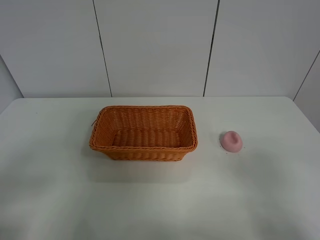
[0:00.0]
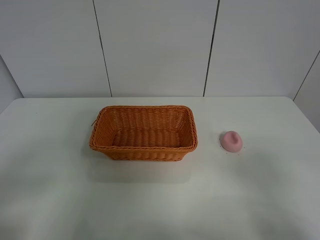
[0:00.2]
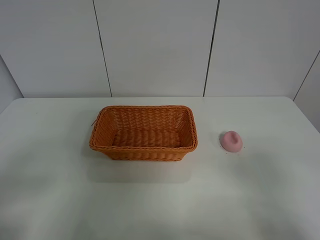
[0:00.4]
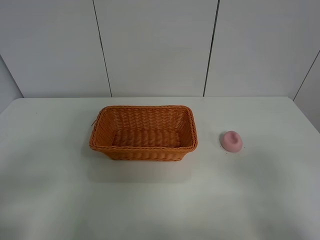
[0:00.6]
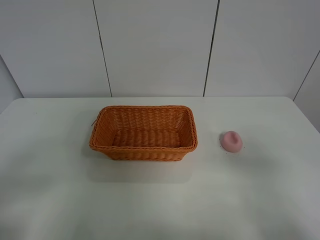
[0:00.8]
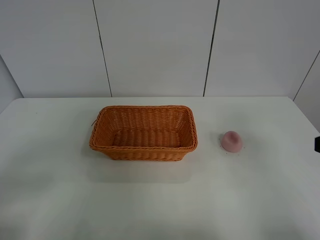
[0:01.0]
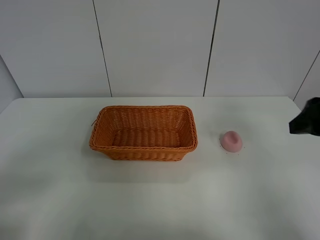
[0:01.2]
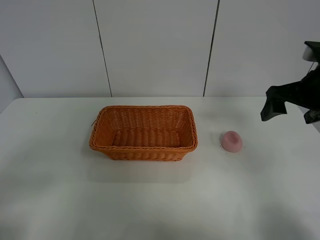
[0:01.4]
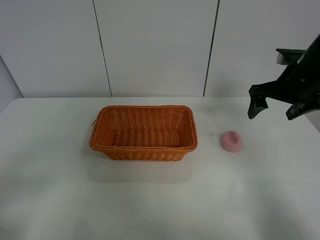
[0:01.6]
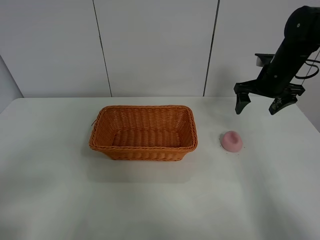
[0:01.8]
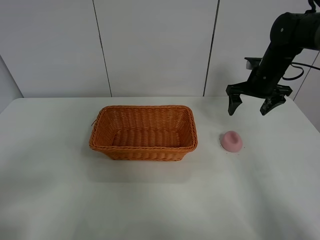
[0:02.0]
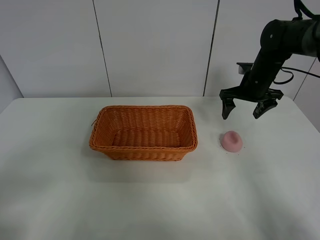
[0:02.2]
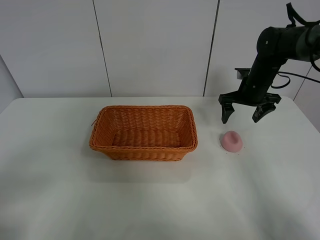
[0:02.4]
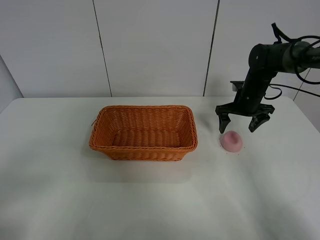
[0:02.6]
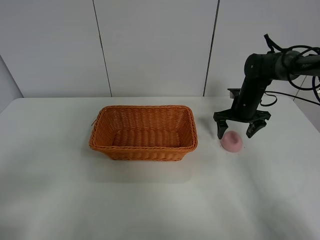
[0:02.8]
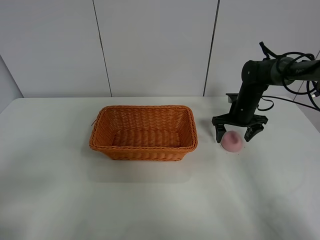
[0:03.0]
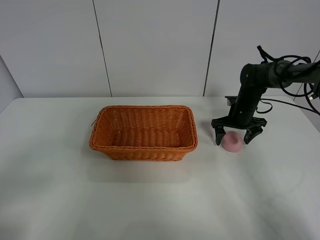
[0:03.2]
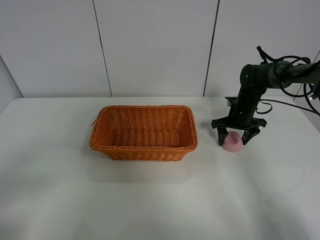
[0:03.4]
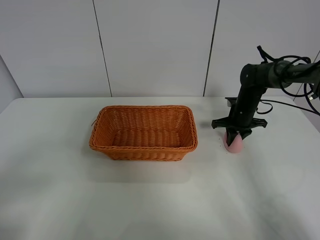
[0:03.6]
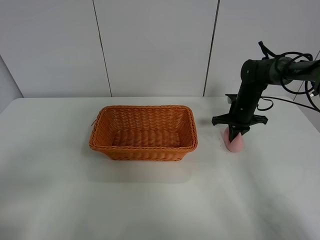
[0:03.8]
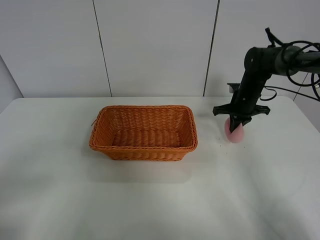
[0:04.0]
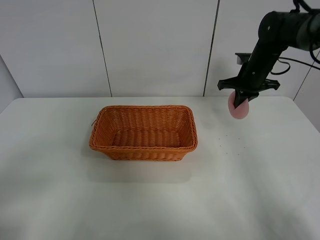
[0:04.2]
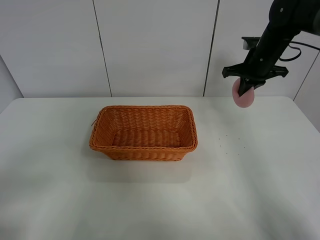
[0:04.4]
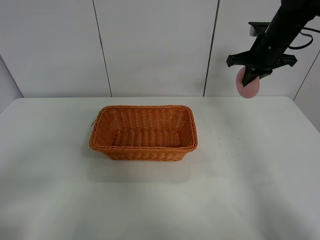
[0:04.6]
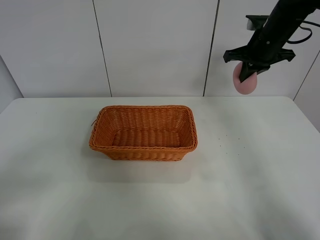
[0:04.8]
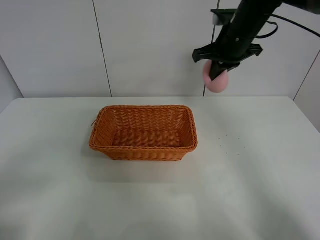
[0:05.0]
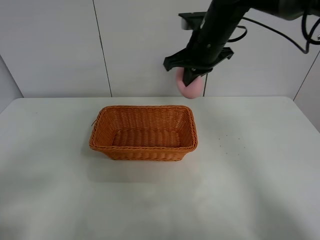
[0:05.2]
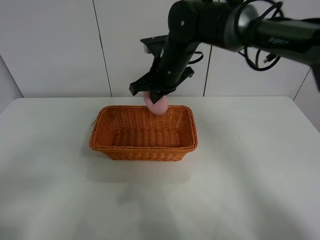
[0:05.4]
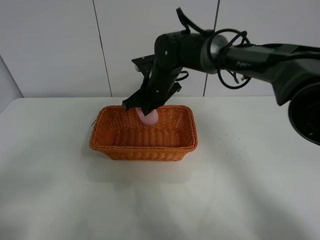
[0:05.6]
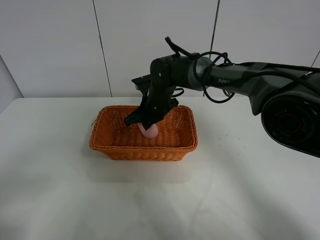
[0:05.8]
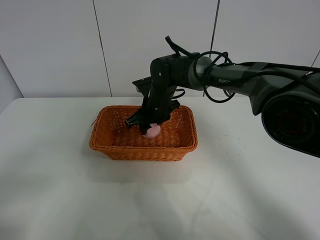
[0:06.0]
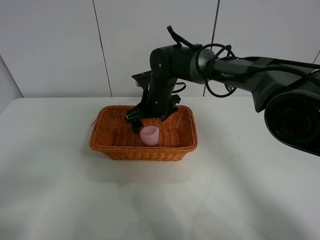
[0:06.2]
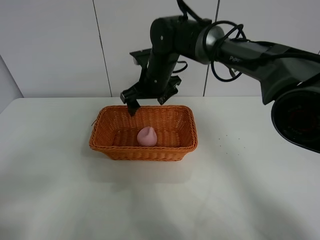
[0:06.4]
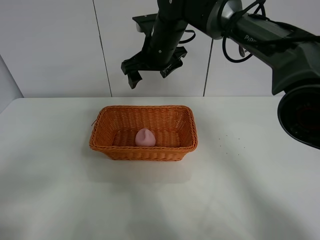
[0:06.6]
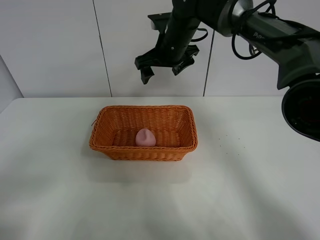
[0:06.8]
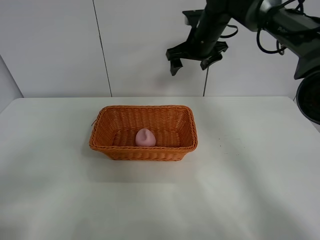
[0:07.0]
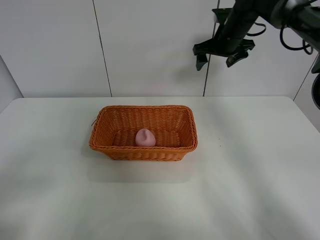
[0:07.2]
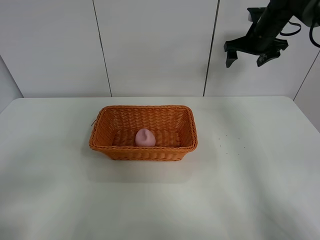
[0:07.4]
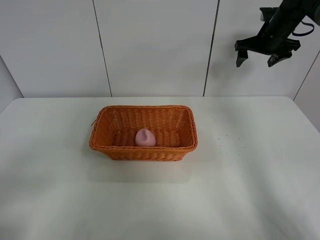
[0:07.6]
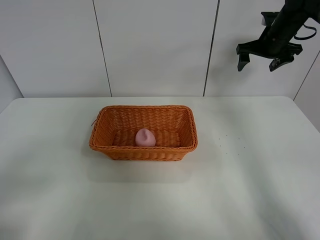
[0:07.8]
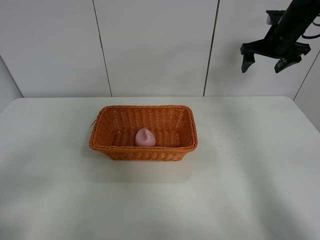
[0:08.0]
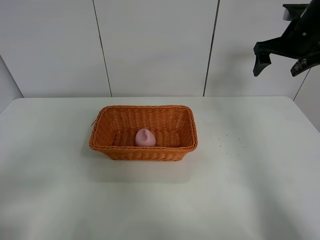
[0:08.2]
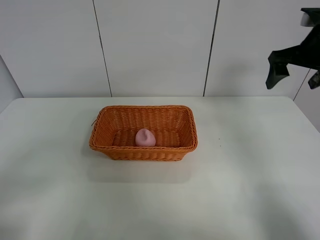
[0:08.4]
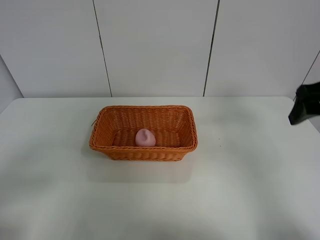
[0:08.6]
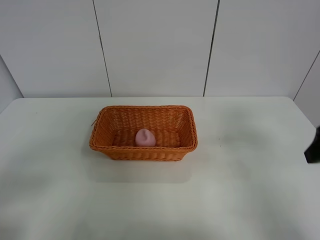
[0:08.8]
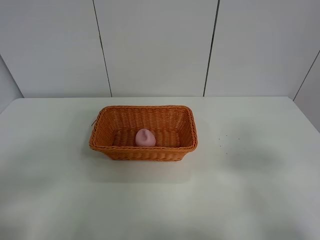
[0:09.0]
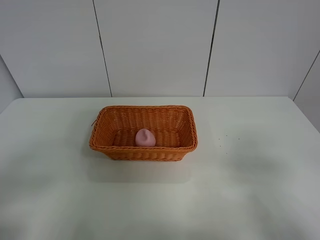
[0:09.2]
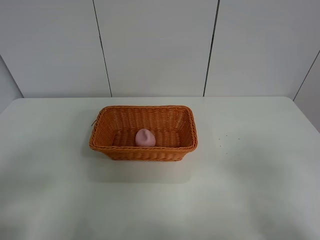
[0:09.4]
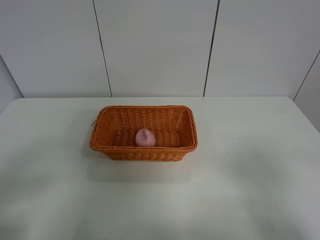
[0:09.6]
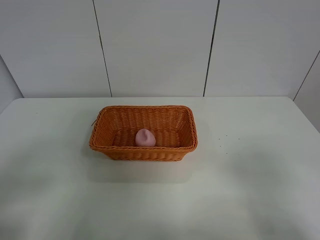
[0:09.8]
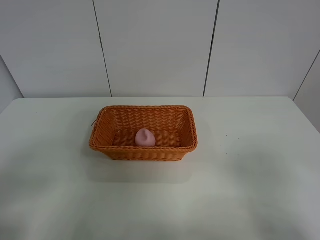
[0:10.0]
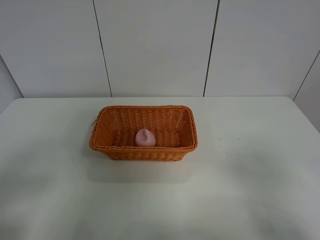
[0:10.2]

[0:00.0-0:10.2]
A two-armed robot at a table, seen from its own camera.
Step, 0:00.0 to 0:03.6: Grasp the peach with right gripper.
Step, 0:03.8 to 0:06.8: Place the peach in the basket with right gripper.
0:00.0 to 0:01.4: The right gripper heads forward, covering some 30 cm.
0:01.4 to 0:03.0: The right gripper is displaced downward and forward by some 25 cm.
0:03.0 to 0:04.4: The right gripper heads upward, covering about 15 cm, and closes.
0:04.4 to 0:05.8: The right gripper goes some 25 cm to the left and downward.
0:05.8 to 0:07.2: The right gripper heads to the right, upward and forward, covering about 25 cm, and opens.
0:07.2 to 0:08.8: The right gripper heads backward, covering roughly 35 cm.
0:08.8 to 0:10.2: The right gripper moves backward, some 15 cm.
